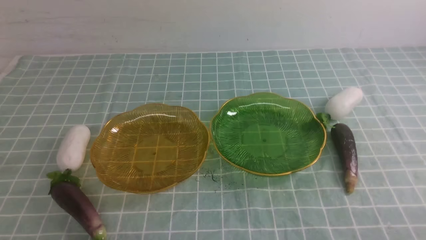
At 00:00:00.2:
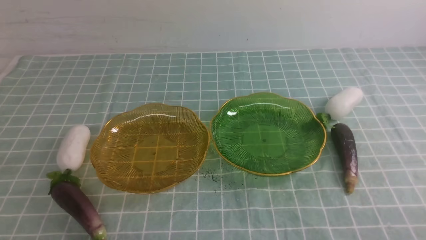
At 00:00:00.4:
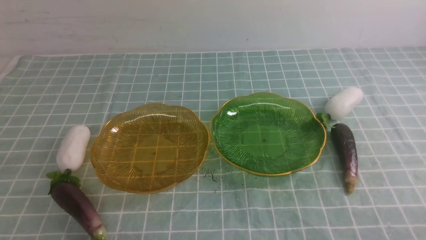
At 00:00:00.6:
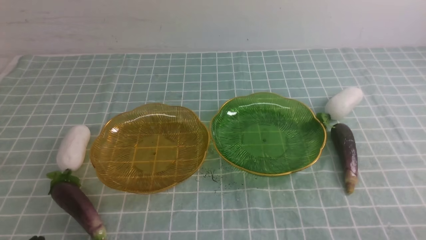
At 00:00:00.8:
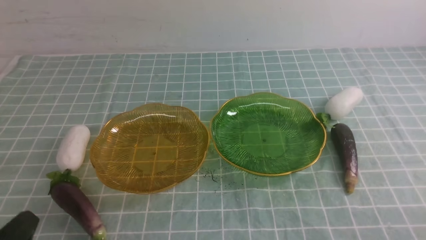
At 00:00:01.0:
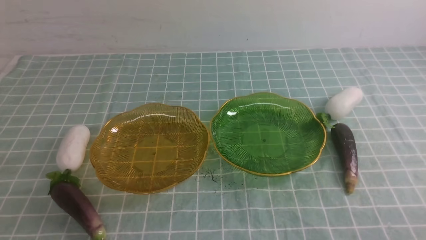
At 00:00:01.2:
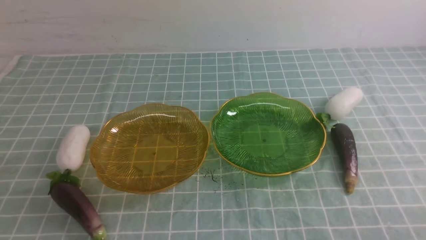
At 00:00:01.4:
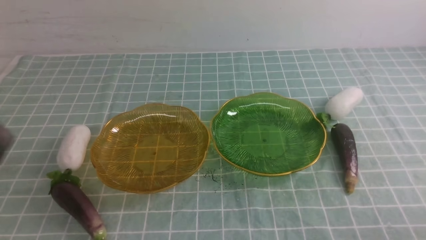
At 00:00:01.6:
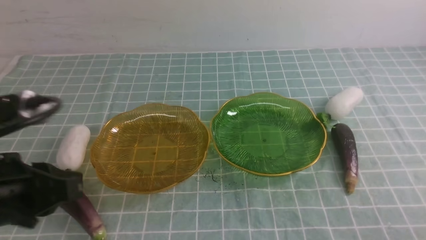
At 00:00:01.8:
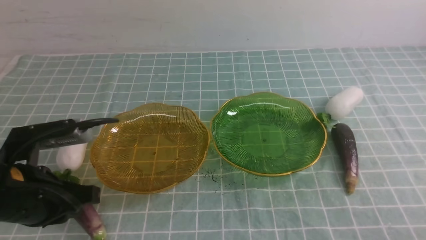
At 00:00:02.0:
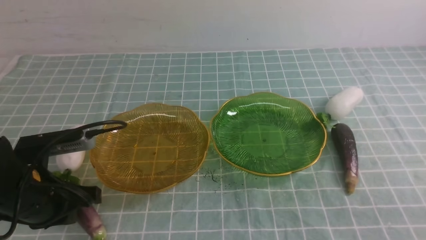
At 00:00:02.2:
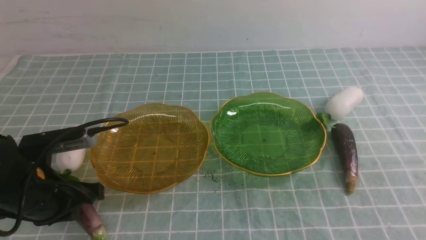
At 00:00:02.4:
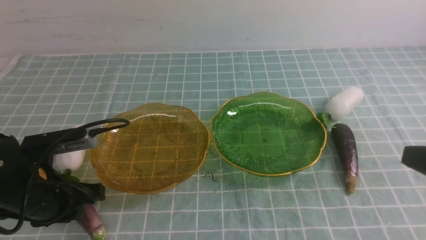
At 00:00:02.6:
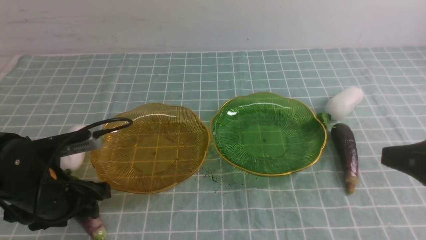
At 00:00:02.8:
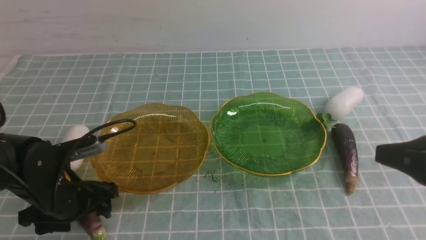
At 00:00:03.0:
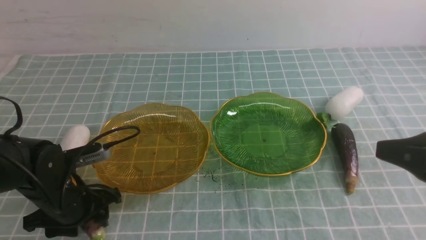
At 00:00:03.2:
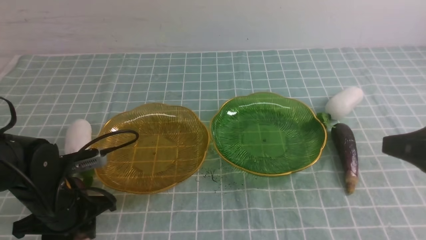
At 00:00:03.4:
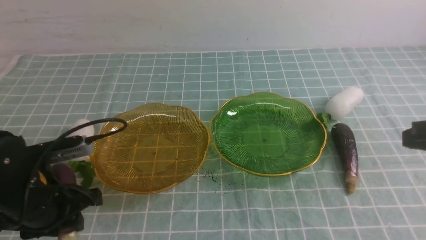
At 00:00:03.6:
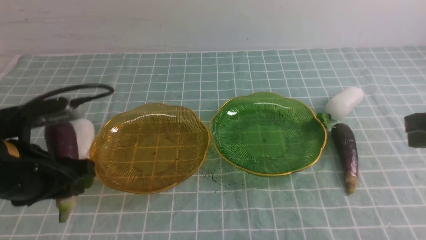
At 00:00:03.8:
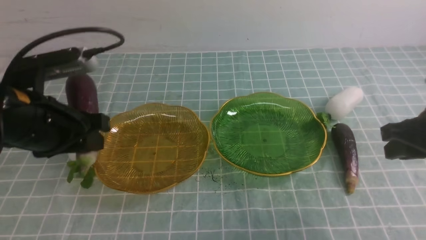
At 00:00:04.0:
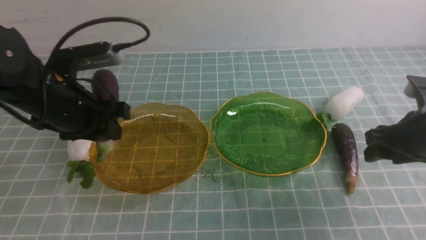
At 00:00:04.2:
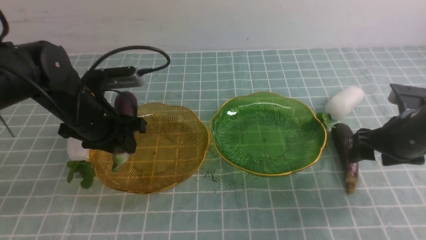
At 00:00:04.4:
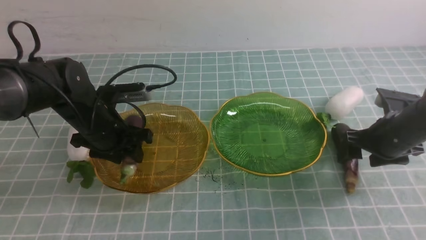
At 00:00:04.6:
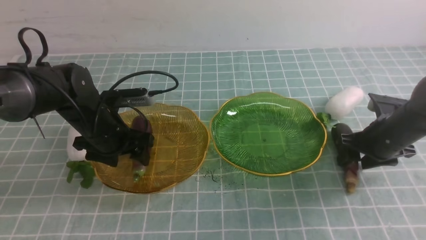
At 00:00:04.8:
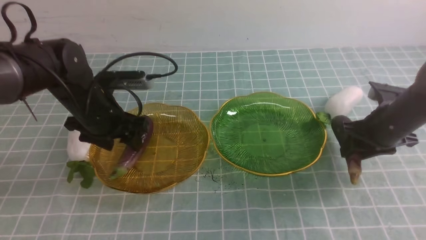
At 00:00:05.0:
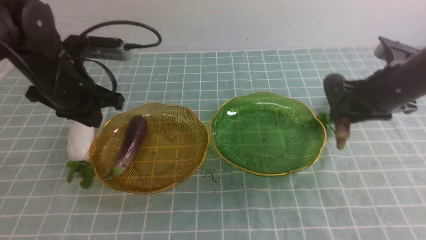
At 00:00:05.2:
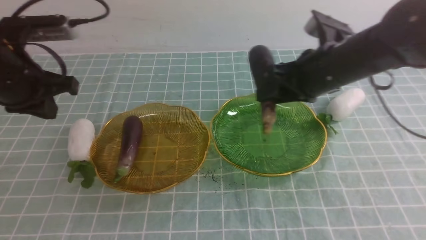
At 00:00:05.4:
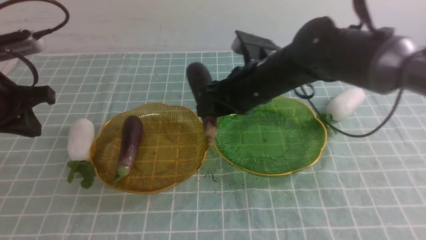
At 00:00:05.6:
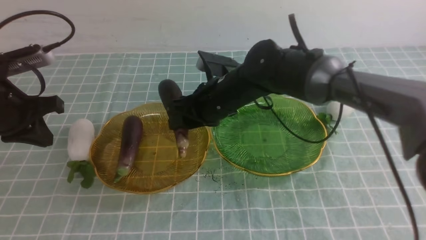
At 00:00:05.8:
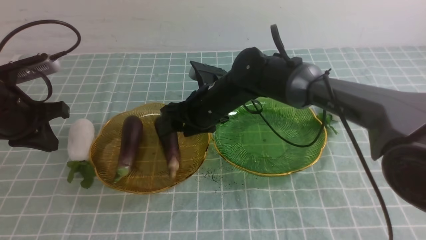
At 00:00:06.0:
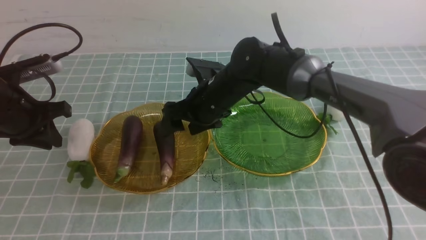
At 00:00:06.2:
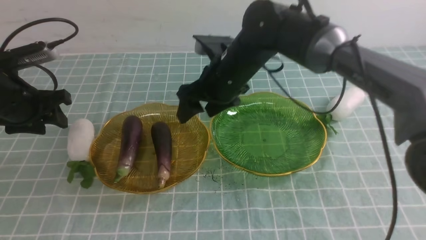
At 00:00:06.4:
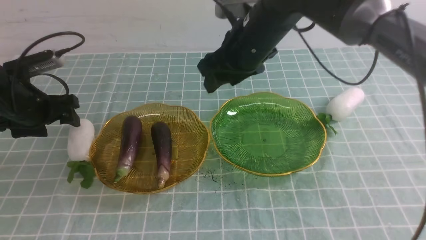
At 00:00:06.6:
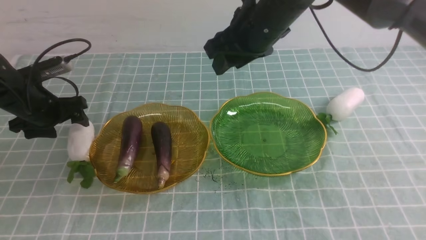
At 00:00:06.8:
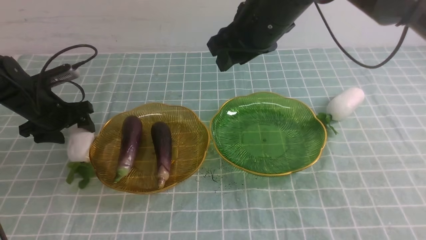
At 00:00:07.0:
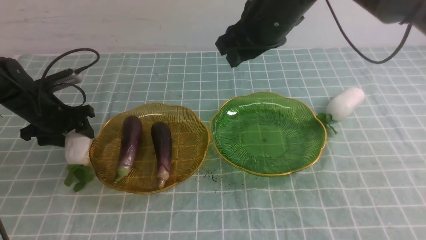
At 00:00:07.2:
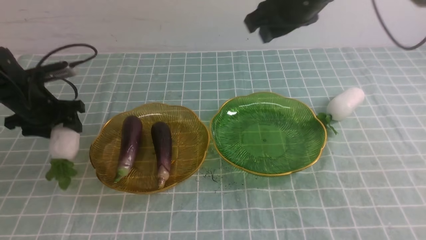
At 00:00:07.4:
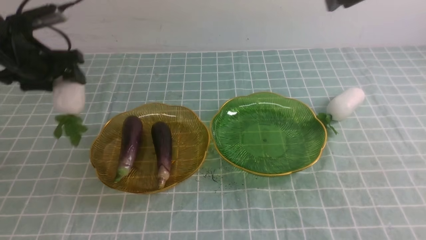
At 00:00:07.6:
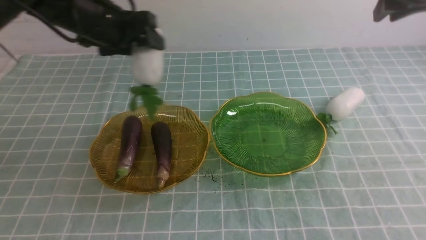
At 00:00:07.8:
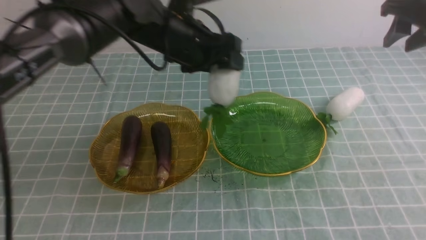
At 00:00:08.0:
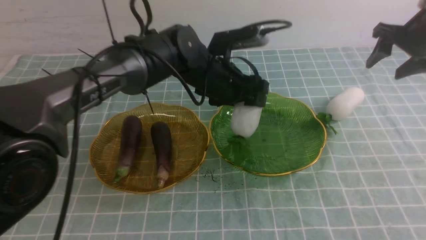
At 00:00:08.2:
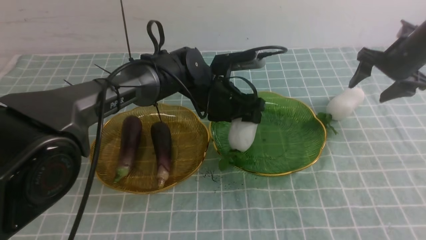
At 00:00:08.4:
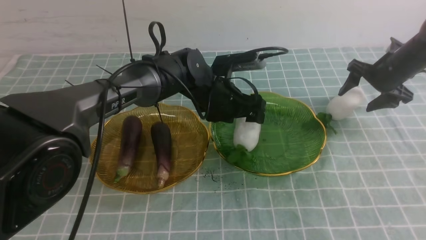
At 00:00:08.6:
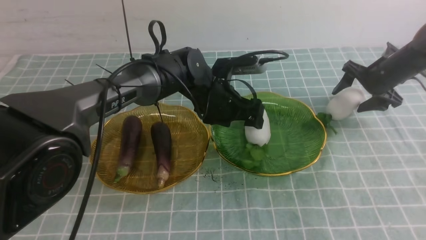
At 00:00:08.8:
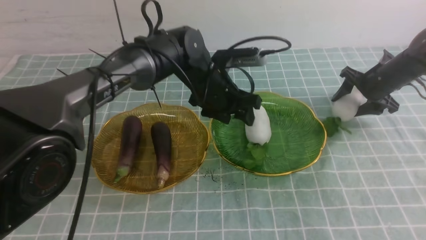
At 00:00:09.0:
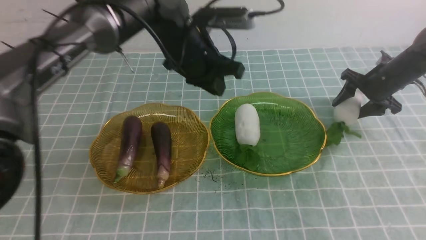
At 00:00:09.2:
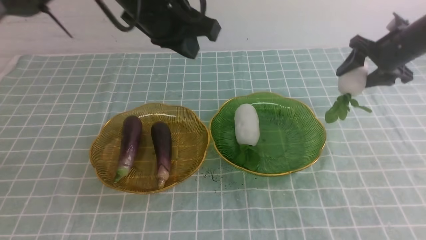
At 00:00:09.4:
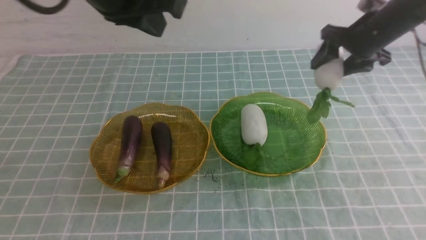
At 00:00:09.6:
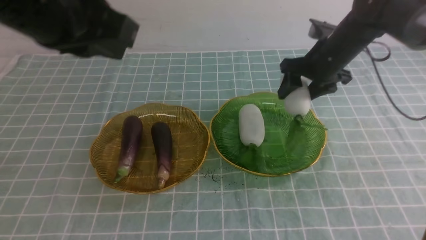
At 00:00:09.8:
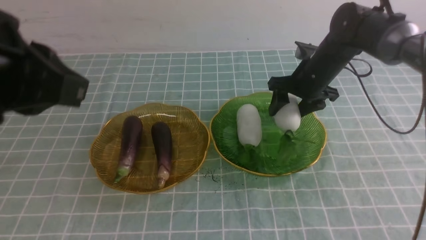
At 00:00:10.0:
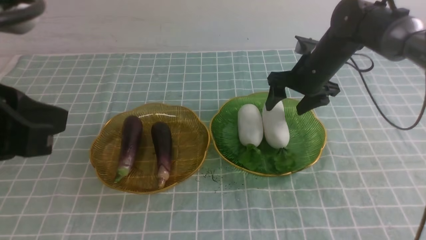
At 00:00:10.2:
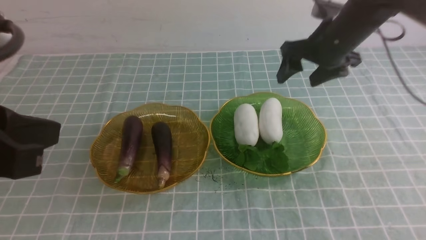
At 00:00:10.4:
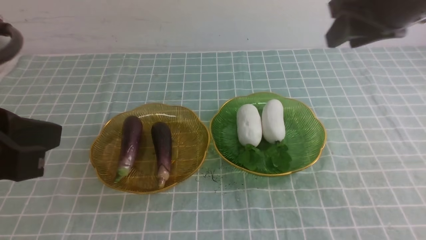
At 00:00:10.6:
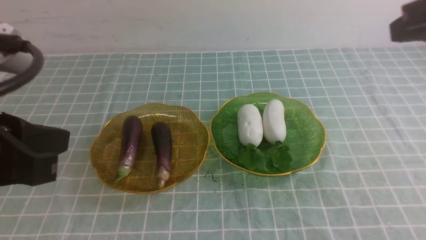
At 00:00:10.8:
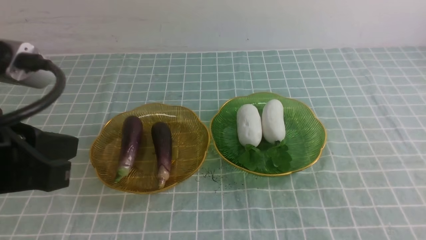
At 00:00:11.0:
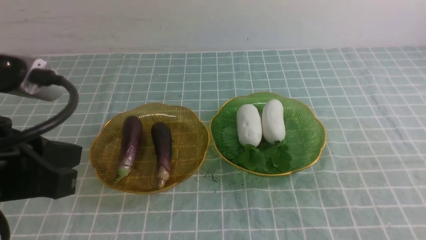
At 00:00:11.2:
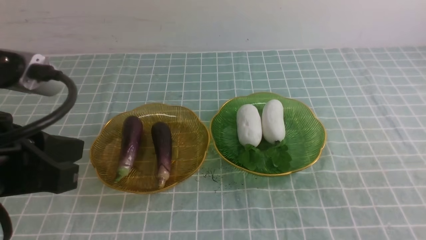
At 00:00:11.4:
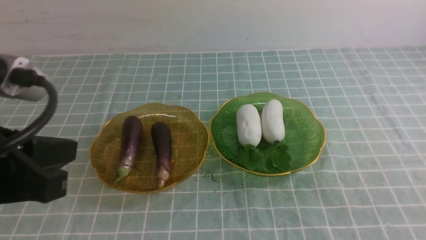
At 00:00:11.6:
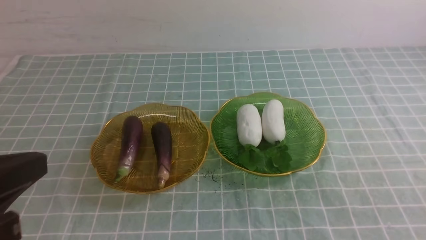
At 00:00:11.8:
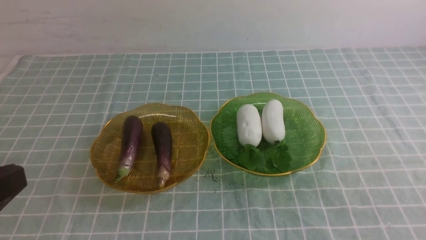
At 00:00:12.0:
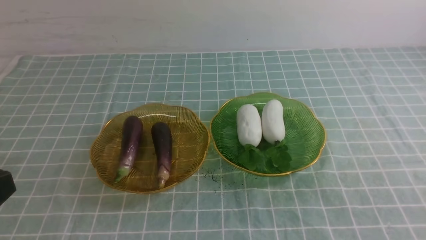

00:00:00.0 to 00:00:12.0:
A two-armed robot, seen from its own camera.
Step, 00:00:00.0 to 00:00:04.4: use the left arm to grab an eggplant and put it into the left plate.
Step, 00:00:04.6 to 00:00:06.0: use the right arm to grab an eggplant and put it into the left plate.
Step, 00:00:06.2 to 00:00:08.6: use the left arm to grab a radish and put it into the right plate.
Step, 00:00:08.8 to 00:00:10.0: use the right arm to grab a radish and put it into the right plate.
00:00:00.0 to 00:00:01.6: The left gripper heads upward and forward, covering roughly 15 cm.
00:00:01.6 to 00:00:03.0: The left gripper goes roughly 15 cm downward and forward, and opens. Meanwhile the right gripper moves upward and forward, some 15 cm.
00:00:03.0 to 00:00:04.4: The right gripper heads forward and downward, covering roughly 20 cm, and opens its fingers. The left gripper heads forward, covering approximately 10 cm.
00:00:04.4 to 00:00:06.0: The left gripper heads to the left and upward, covering approximately 15 cm, and closes, then reopens. The right gripper travels to the left by some 25 cm, and closes, then reopens.
00:00:06.0 to 00:00:07.6: The left gripper shifts about 20 cm to the right, forward and upward, and opens up. The right gripper travels to the right and upward by about 30 cm, and closes its fingers.
00:00:07.6 to 00:00:09.0: The right gripper goes some 20 cm downward and forward. The left gripper goes about 10 cm to the right, and closes its fingers.
00:00:09.0 to 00:00:10.4: The right gripper moves upward, backward and to the left, roughly 30 cm; the left gripper shifts about 30 cm backward and to the left.
00:00:10.4 to 00:00:12.0: The right gripper moves backward, roughly 30 cm, and closes its fingers. Meanwhile the left gripper travels backward and downward by some 10 cm.

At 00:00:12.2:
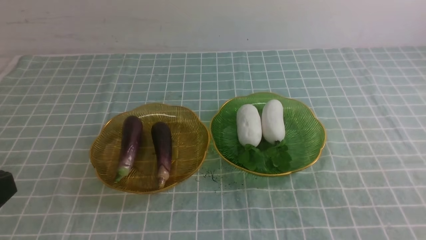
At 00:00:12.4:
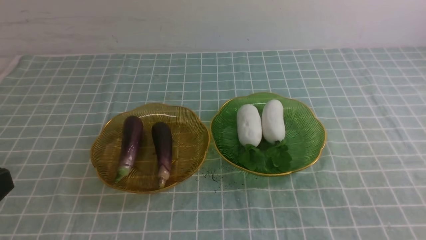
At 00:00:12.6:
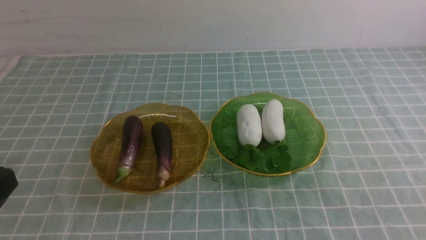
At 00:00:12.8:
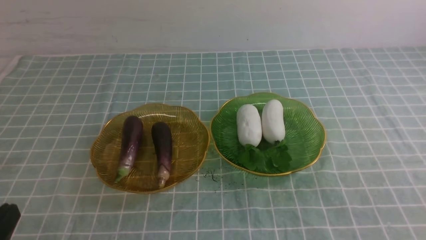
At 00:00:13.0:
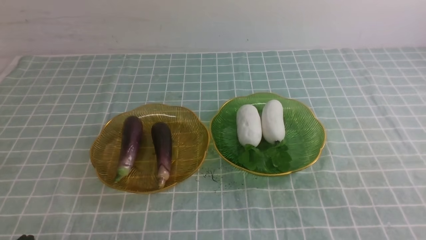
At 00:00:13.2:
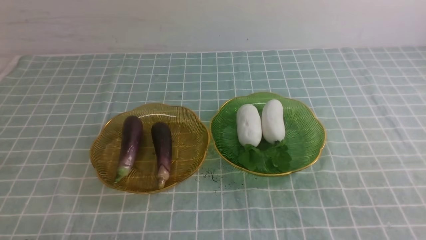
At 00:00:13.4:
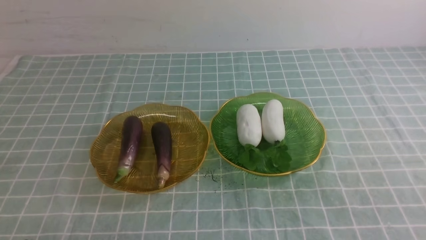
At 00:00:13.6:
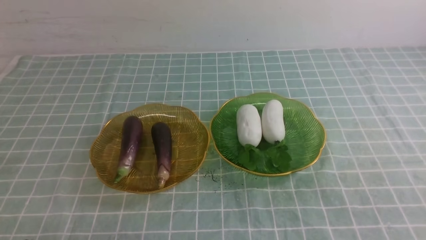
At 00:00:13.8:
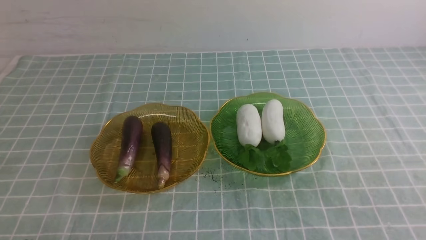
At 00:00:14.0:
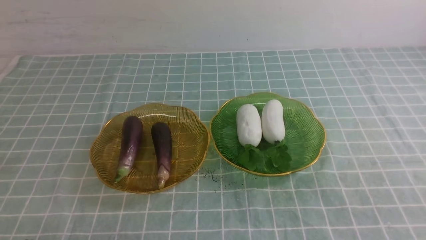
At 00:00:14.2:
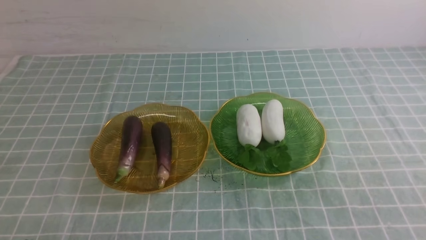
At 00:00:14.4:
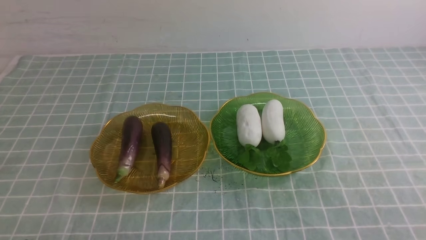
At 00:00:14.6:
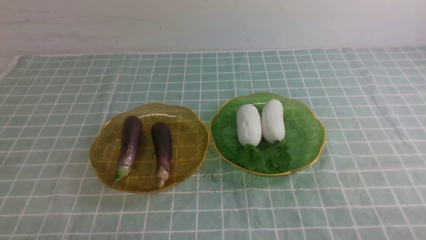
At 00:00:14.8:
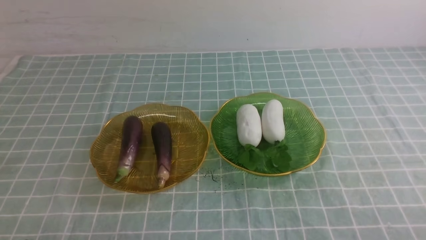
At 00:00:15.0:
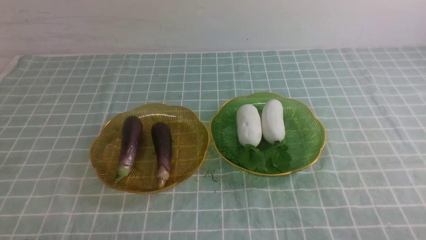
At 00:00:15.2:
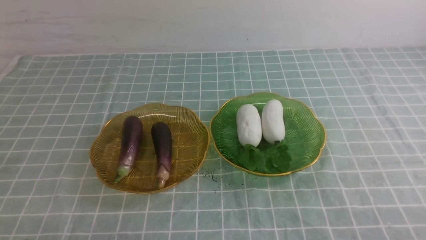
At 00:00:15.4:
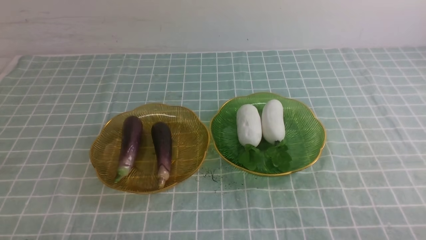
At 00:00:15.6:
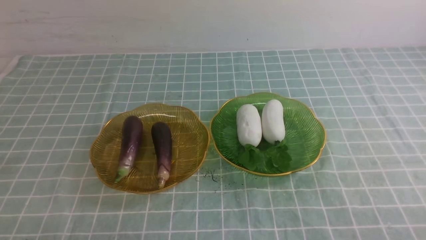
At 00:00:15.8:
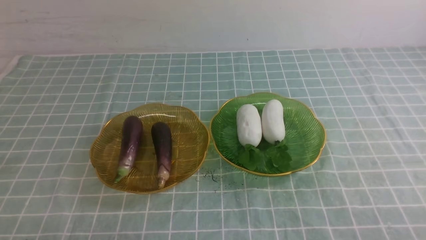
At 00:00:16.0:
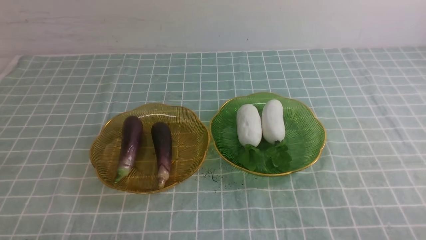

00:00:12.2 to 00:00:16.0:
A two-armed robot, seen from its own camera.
00:00:14.8 to 00:00:16.0: Both grippers stay put.
